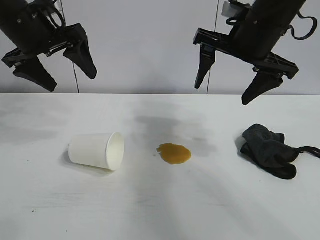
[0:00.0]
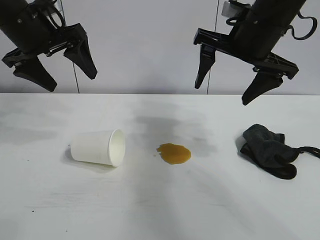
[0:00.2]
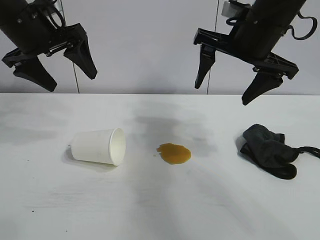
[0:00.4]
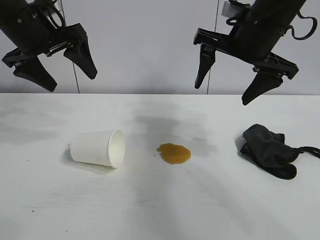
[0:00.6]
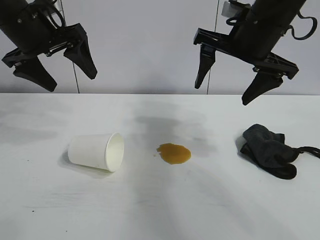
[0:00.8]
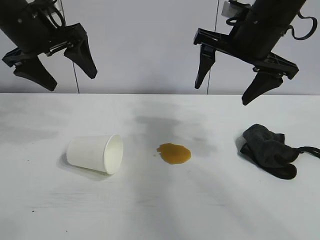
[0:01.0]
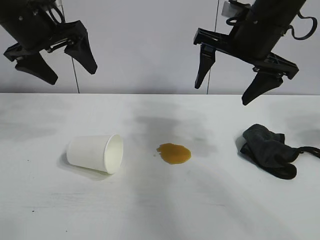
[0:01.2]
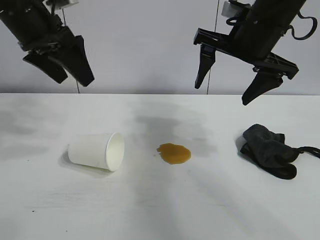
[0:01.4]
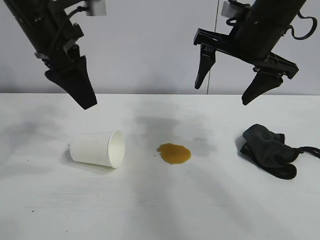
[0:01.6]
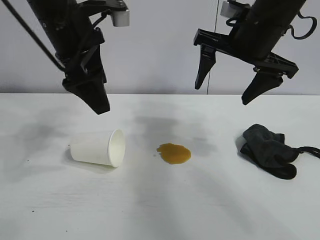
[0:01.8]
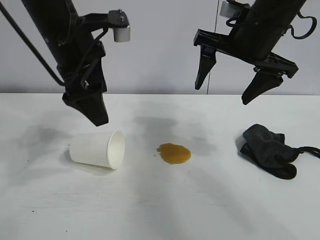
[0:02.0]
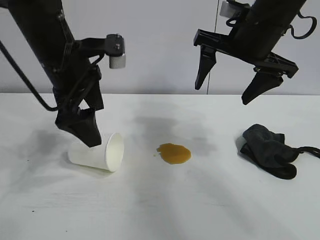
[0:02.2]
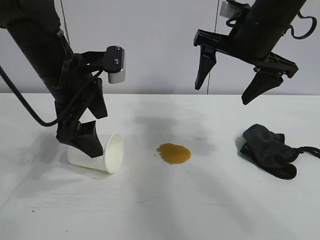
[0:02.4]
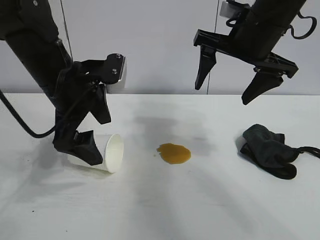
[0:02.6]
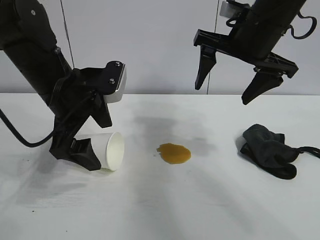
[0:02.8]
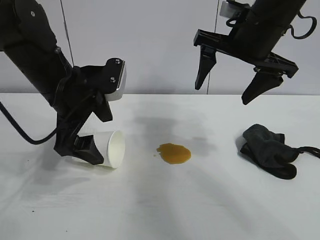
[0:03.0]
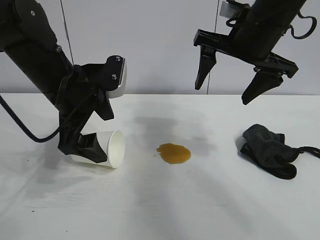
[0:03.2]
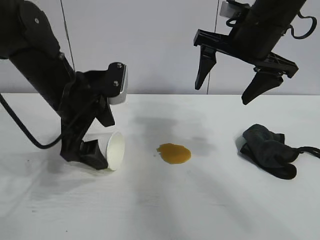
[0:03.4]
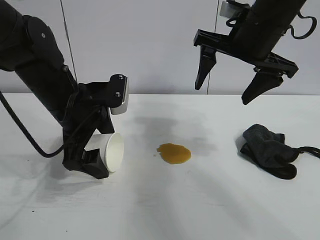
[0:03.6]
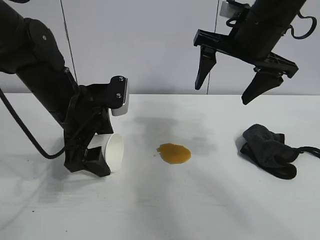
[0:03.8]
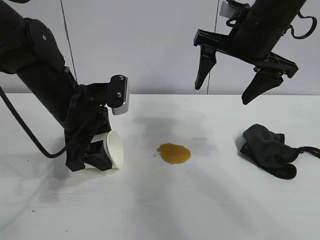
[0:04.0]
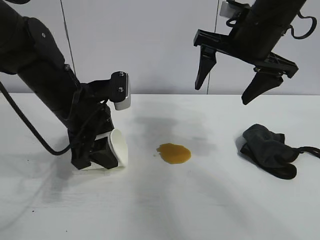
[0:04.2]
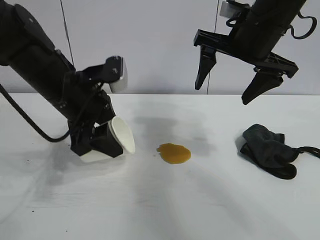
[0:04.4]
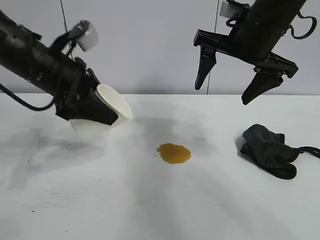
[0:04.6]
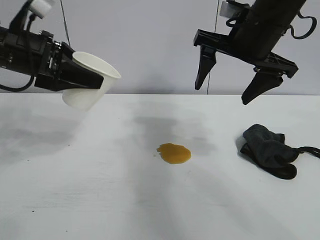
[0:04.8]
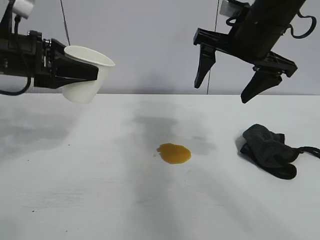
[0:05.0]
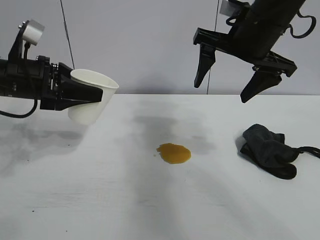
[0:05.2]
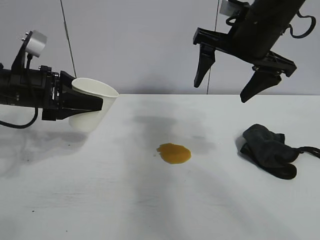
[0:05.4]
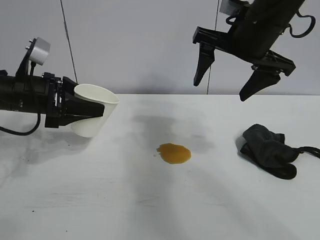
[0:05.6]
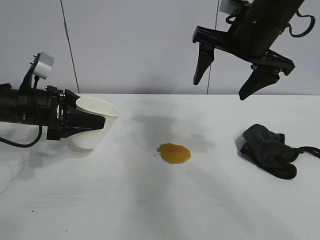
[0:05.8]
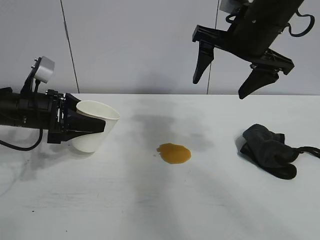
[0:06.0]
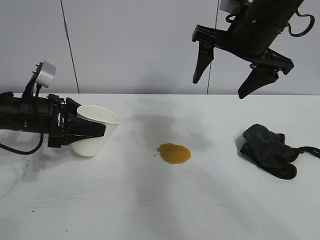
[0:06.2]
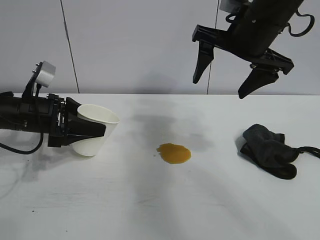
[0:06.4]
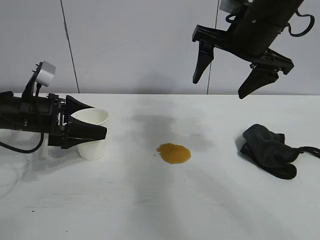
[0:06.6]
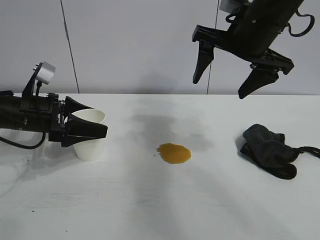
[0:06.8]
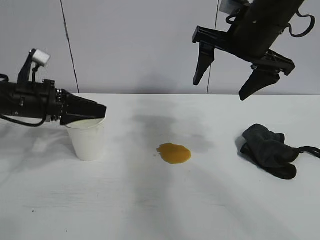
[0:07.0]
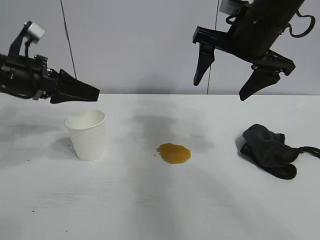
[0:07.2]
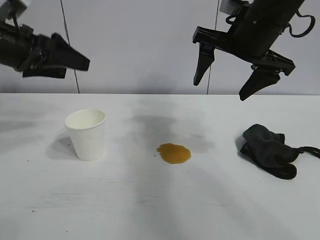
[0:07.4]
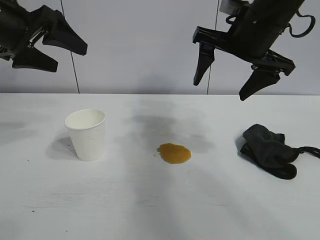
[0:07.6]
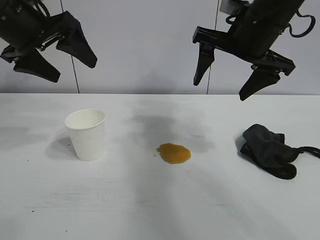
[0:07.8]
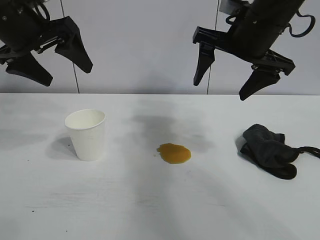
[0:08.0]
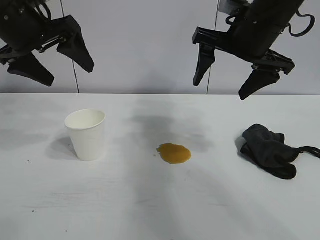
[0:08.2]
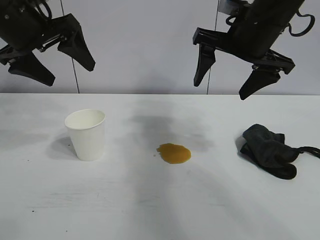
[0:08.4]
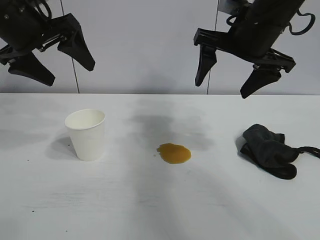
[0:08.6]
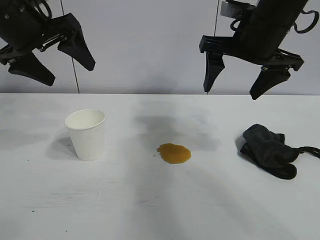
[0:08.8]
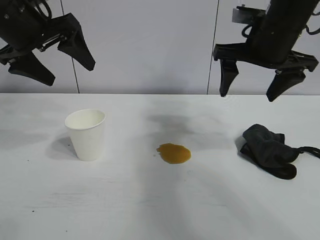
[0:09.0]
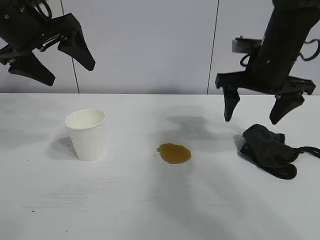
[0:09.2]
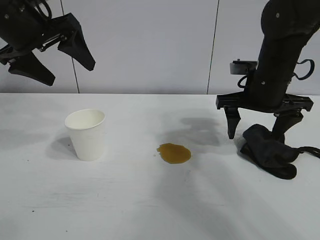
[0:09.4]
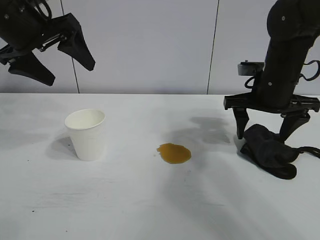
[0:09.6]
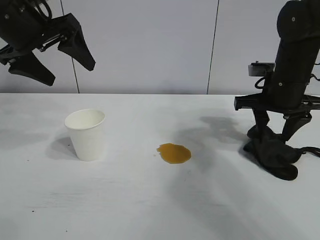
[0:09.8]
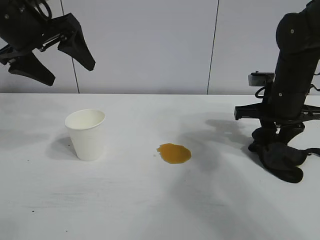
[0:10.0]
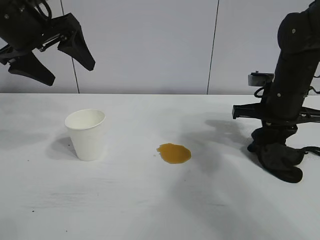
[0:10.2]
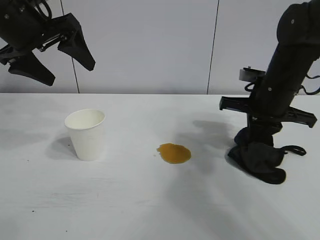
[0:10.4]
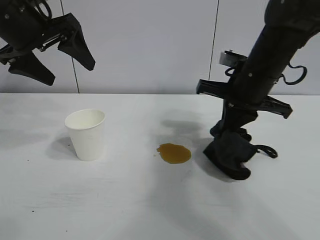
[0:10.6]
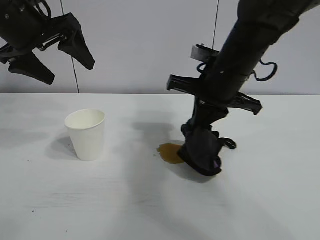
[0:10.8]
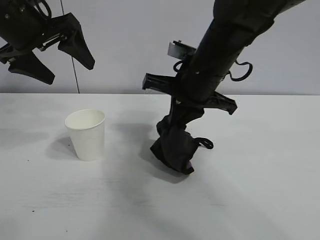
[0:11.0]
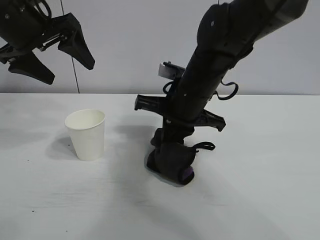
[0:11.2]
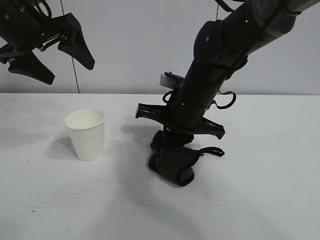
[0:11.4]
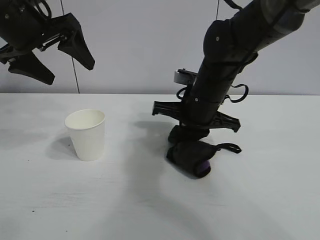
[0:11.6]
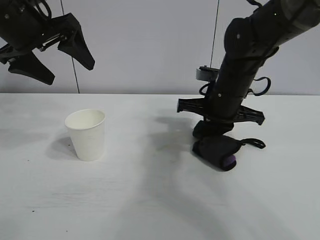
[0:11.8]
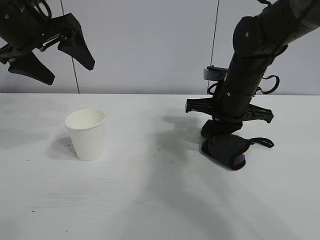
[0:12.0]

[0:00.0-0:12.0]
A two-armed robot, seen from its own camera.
Task of the whole recording: the left gripper pick up the fallen cup and place it upright, the right gripper grasp the black rag and wipe the stain on the table, the right gripper put the black rag back in its original position.
Step, 0:01.2 to 0:03.8: Grasp the paper cup with left gripper.
Step, 0:04.0 to 0:06.6: Stand the paper cup upright with left gripper.
Step, 0:06.8 to 0:10.2: Grasp the rag with right gripper.

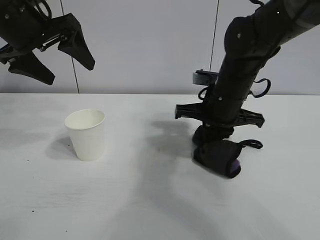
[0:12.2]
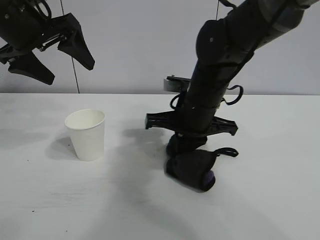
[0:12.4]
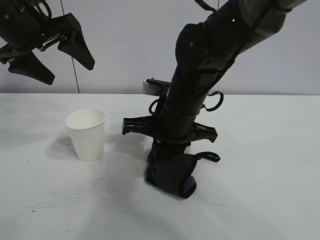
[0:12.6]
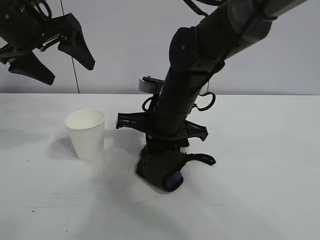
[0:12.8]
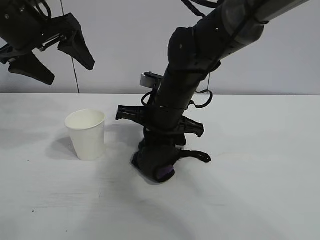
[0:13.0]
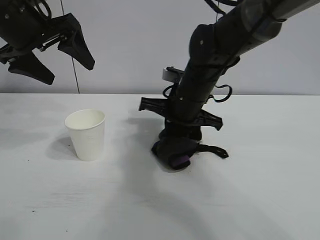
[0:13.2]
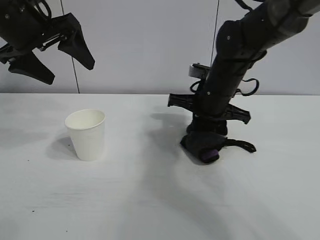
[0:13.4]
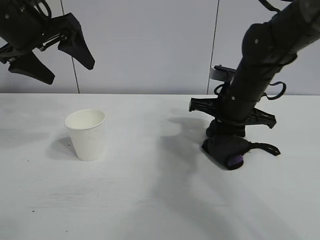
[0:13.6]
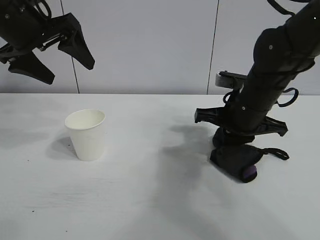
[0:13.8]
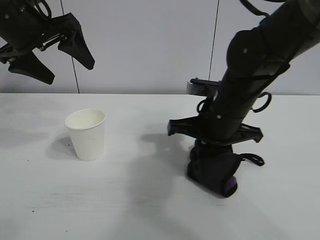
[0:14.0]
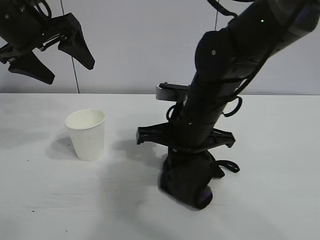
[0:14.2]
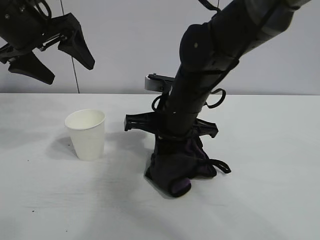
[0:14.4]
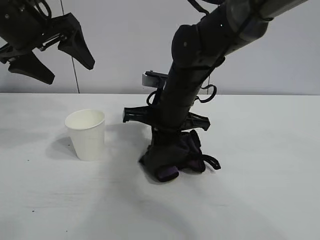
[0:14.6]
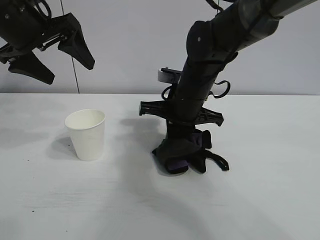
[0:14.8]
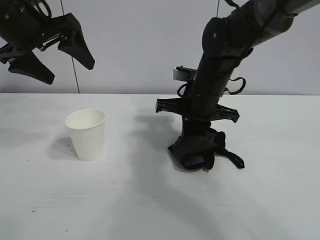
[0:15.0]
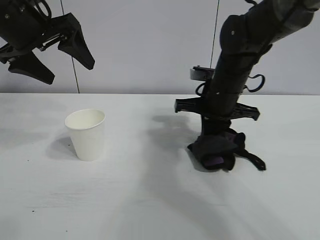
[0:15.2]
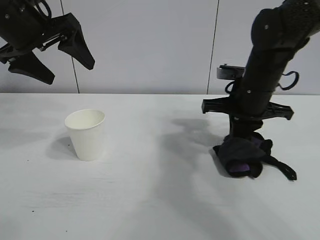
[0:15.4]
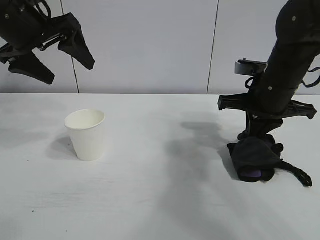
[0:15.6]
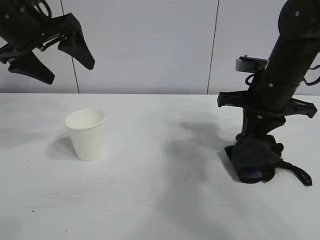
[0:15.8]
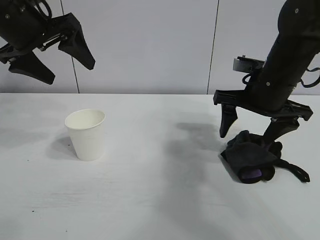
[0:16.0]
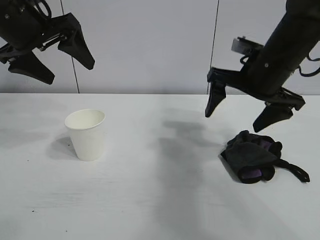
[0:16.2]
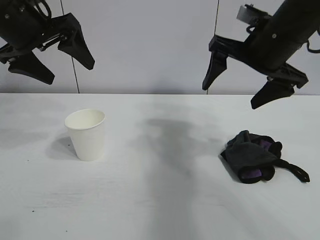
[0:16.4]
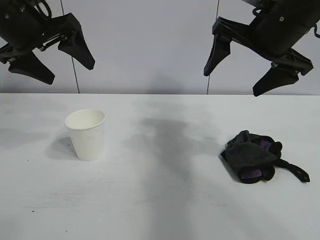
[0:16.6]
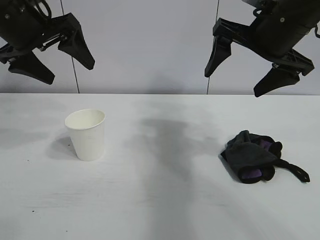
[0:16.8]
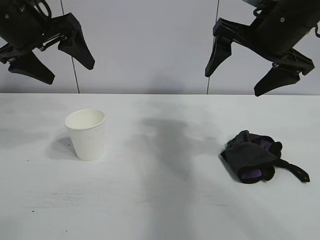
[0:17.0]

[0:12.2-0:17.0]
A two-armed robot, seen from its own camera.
Task of the whole recording: the left gripper pick up the fallen cup and place it upright, the right gripper grasp the black rag and wipe the stain on the table, the right gripper put the black rag back in its original position.
Step, 0:12.2 to 0:15.4: Wipe the stains off the table with the rag with right gripper.
Step, 0:15.6 to 0:15.8: Place the rag on the table with right gripper.
